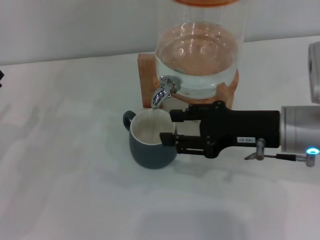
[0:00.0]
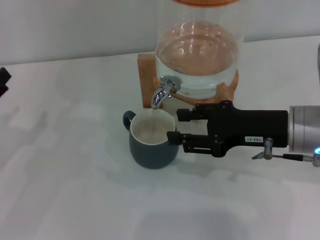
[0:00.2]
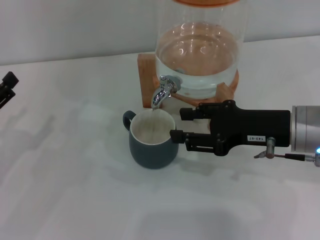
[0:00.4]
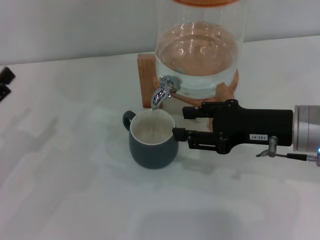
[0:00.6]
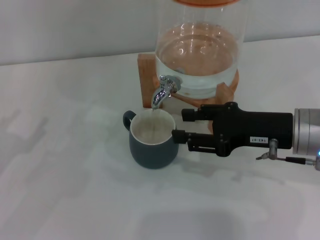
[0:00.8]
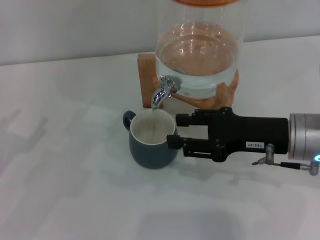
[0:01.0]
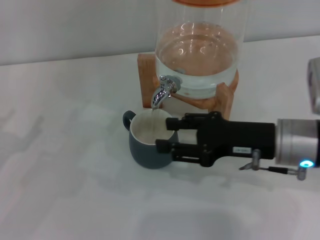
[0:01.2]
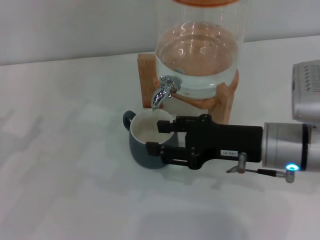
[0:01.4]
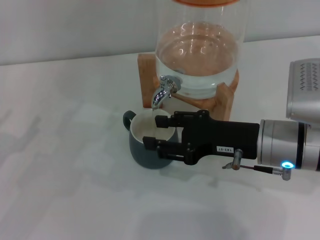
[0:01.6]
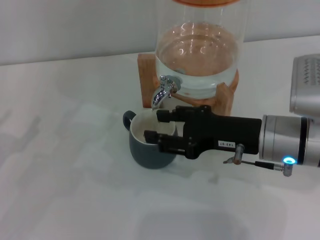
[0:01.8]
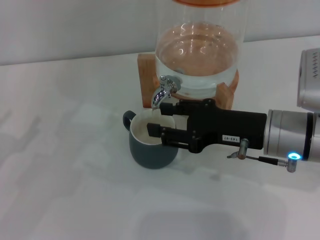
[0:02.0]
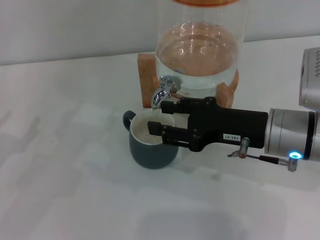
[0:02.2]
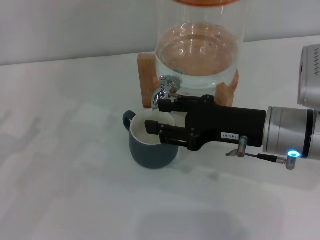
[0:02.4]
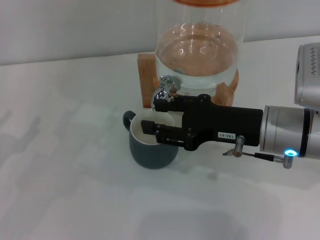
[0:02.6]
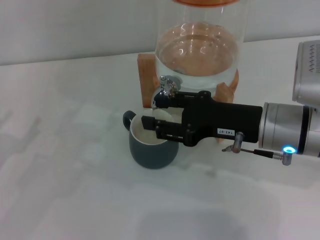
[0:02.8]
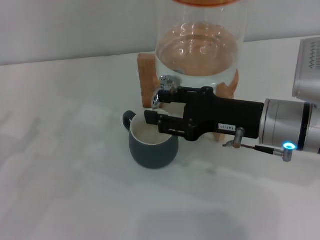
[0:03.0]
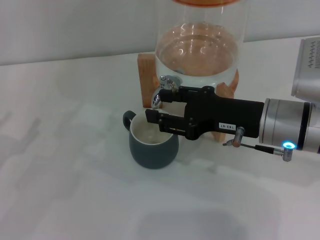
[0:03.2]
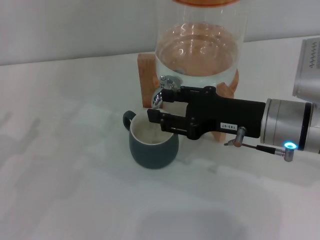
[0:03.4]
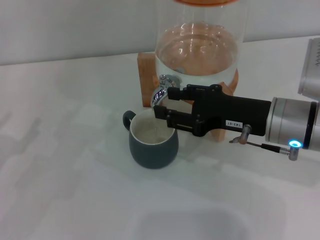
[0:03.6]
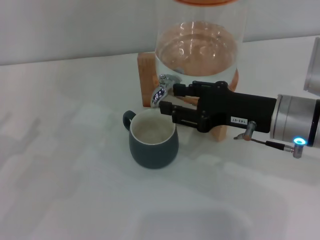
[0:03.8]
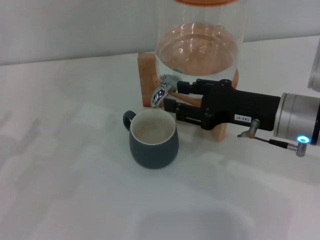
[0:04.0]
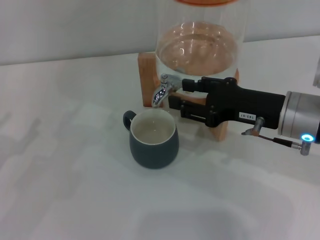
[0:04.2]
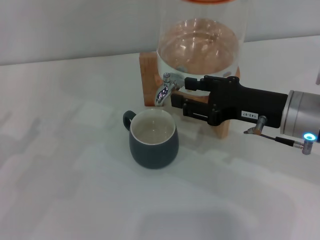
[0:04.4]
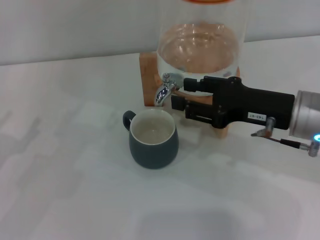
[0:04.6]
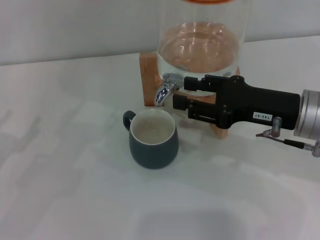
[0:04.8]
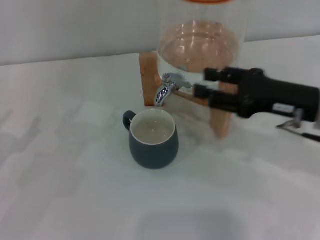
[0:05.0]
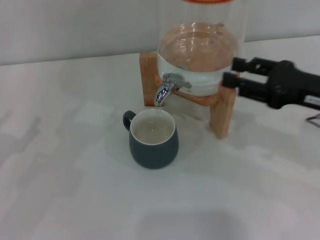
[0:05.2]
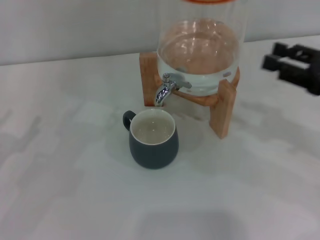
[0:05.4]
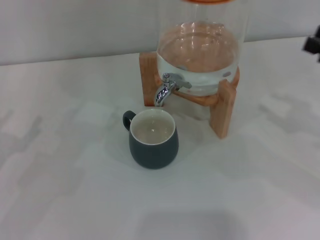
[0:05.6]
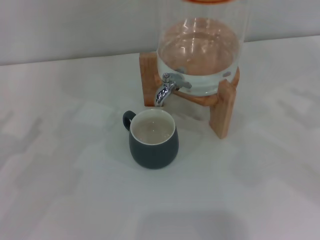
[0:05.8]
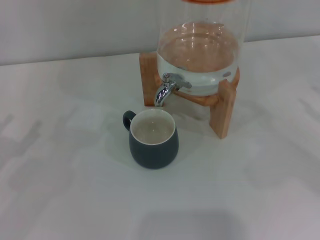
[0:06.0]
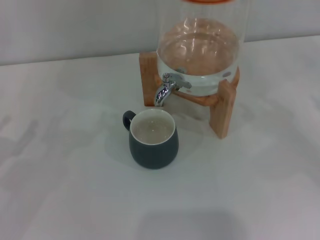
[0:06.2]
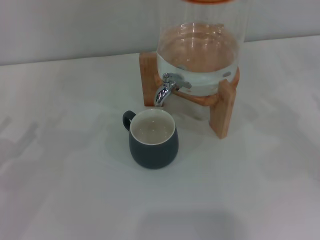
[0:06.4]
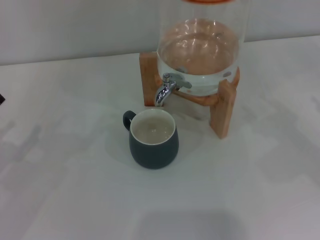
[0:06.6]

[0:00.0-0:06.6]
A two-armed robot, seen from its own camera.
Task of the whole recording: the left gripper pick up the black cup and place it horizontally under the faucet, the right gripper turn on the faucet to fill the cup, and then turn off the faucet.
Step, 0.0 to 4.4 s: Close the dispenser valve with the right gripper.
0.0 to 3.2 s: There are only small adjustments of the grippers.
3.2 to 5.0 s: The right gripper moves to the right, roughly 5 cm.
5.0 to 6.6 s: The right gripper shifts about 20 cm to the right.

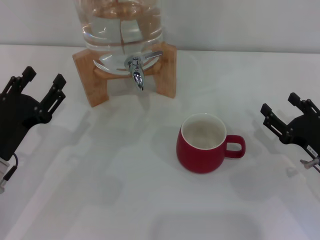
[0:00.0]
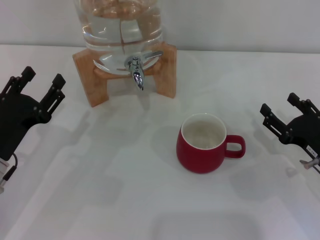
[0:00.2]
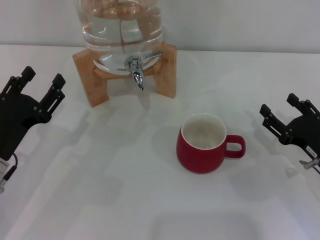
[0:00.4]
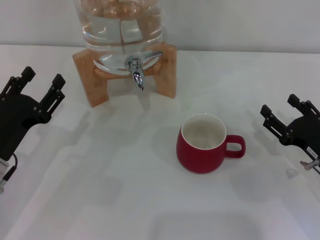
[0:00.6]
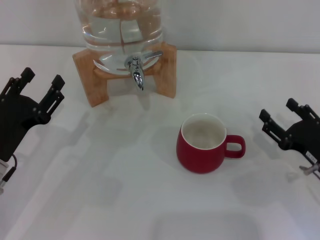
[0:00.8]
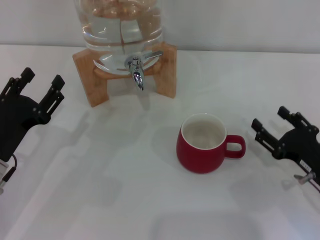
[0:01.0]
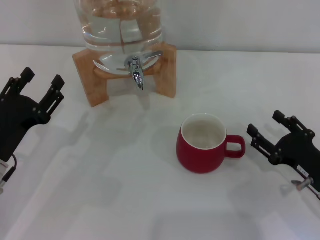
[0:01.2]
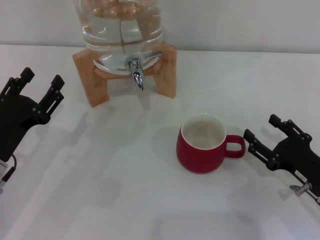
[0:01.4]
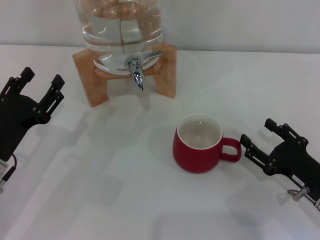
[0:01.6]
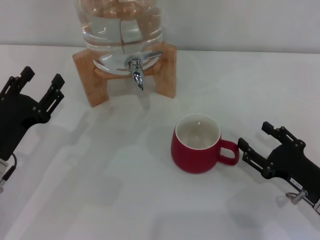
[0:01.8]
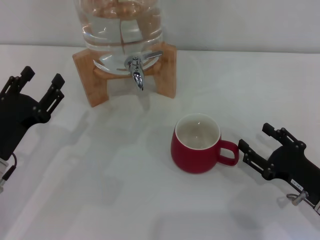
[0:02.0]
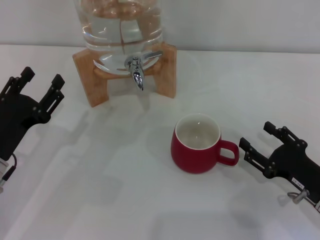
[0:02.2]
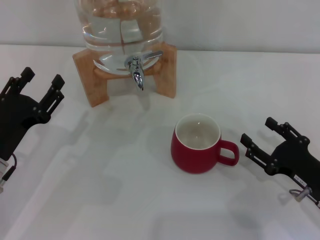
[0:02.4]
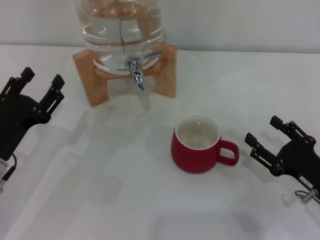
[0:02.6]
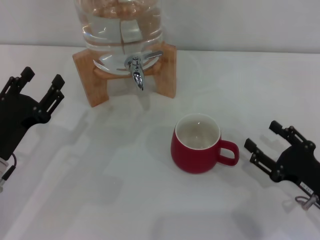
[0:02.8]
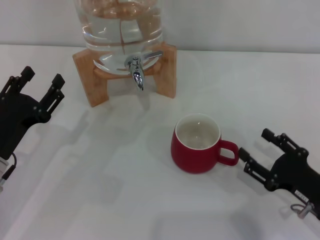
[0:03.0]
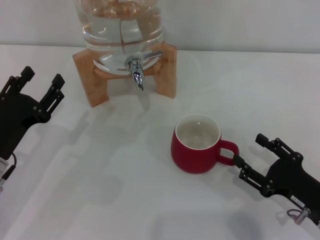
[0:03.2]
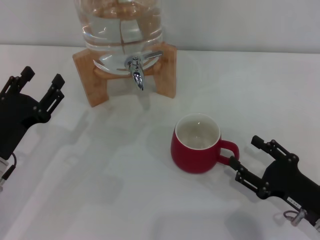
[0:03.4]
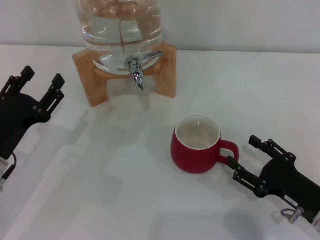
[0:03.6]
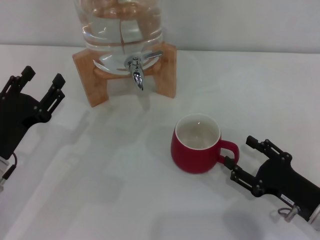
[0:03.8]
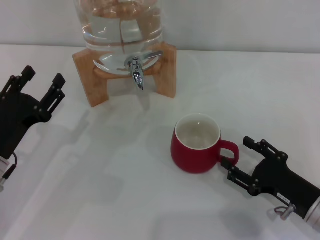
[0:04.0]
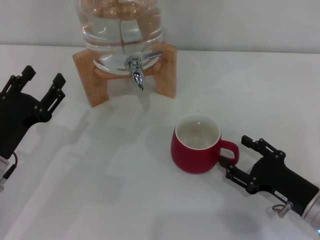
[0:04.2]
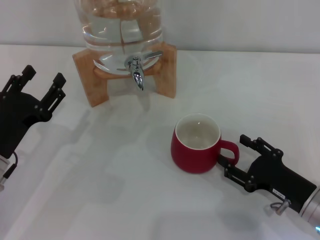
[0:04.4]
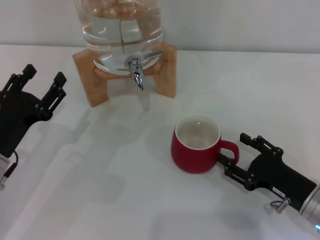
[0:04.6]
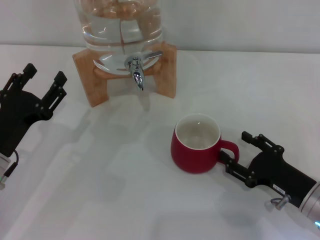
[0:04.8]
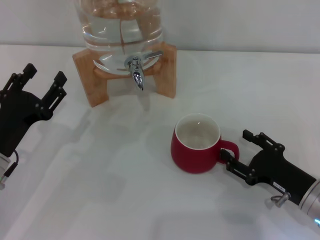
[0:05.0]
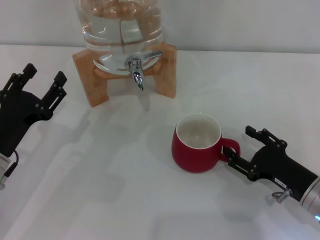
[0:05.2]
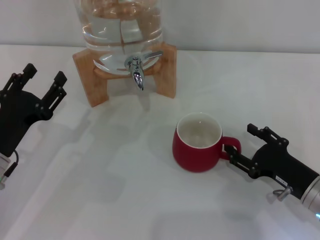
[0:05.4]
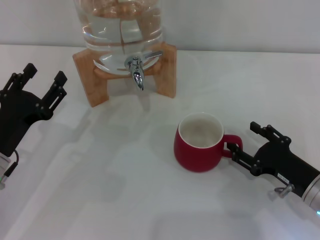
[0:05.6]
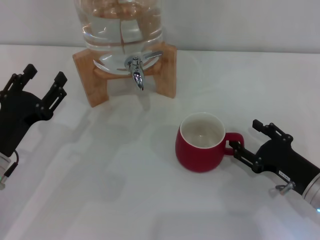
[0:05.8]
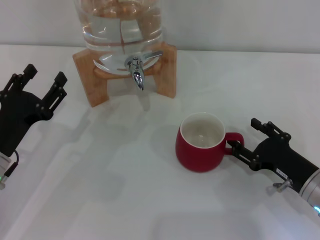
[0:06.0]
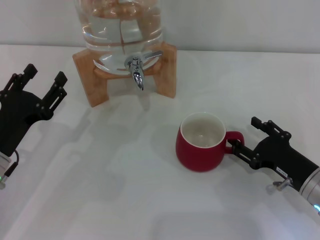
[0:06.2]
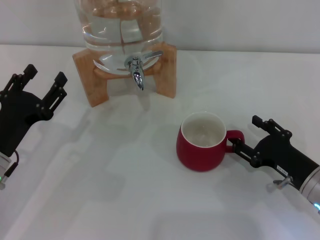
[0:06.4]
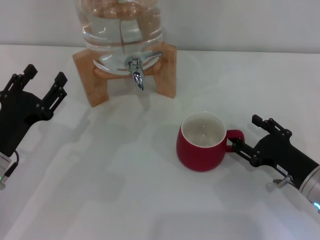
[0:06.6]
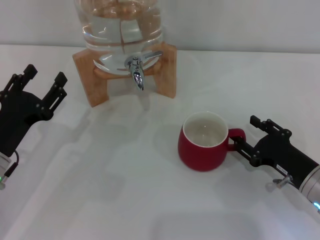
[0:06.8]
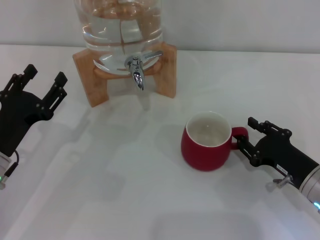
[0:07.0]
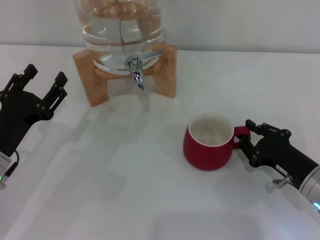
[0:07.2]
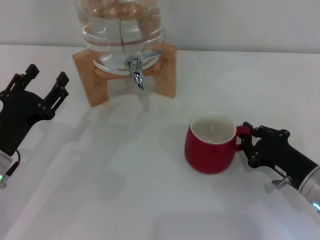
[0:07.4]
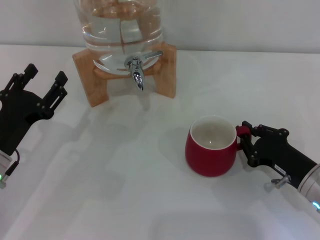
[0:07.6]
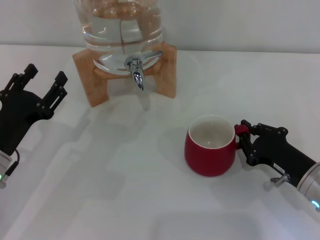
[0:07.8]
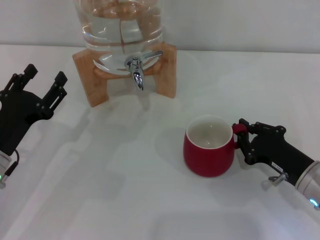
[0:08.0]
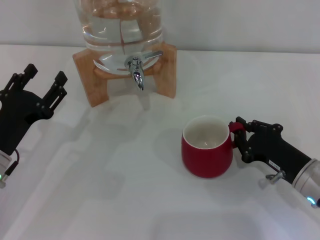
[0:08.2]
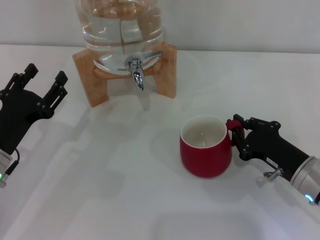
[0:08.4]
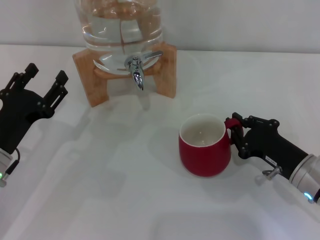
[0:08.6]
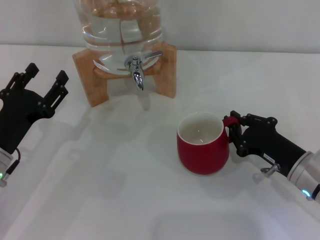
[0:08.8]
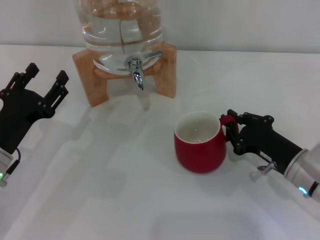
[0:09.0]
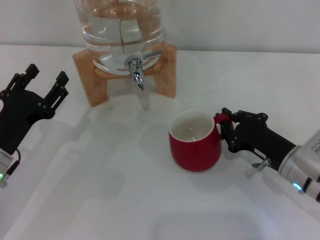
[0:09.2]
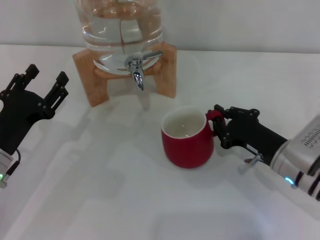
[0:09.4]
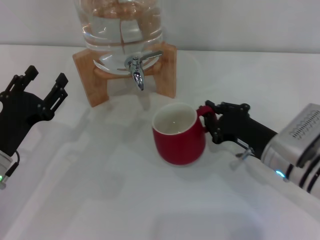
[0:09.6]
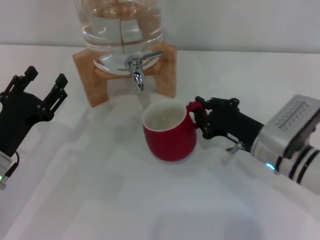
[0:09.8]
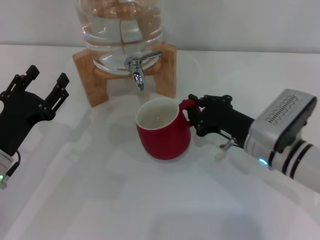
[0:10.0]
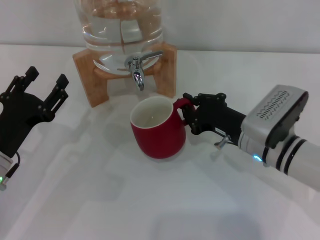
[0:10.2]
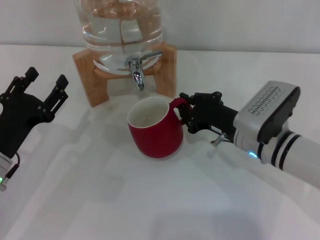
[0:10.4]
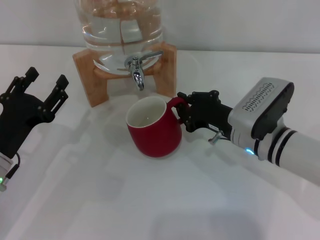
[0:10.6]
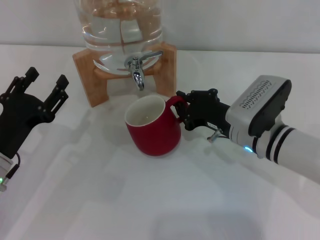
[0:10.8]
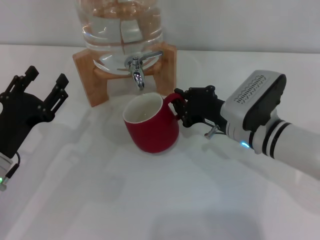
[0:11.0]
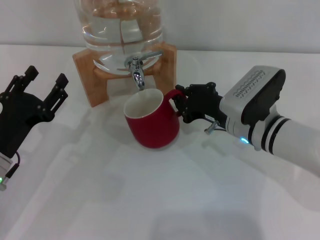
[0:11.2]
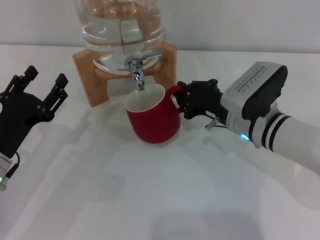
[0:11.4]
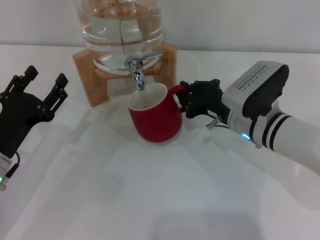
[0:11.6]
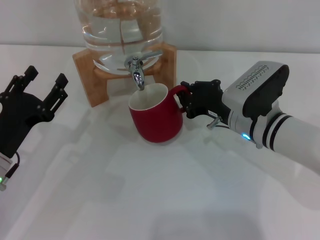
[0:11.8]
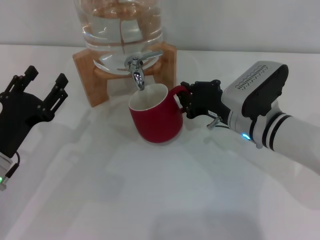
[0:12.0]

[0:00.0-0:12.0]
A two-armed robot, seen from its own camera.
Task of the whole recording: the right gripper pick up the red cup and place it horizontally under the faucet, the left gripper turn on the faucet to fill the cup, and then turn off the faucet.
0.0 to 6.0 s: The grippers move only a little.
6.0 to 7.6 s: The right gripper closes.
7.6 to 9.0 s: The grippers make only small movements.
9.0 to 10.4 s: The right gripper travels to the left by approximately 5 cm.
10.4 to 12.0 s: The grippers stay close to where they were, moving slightly.

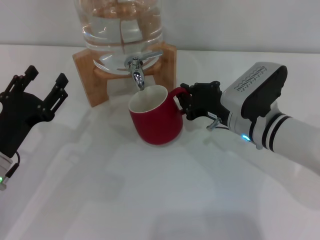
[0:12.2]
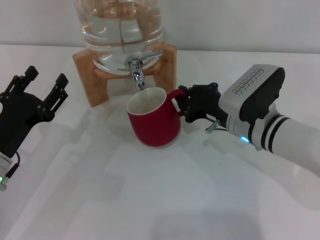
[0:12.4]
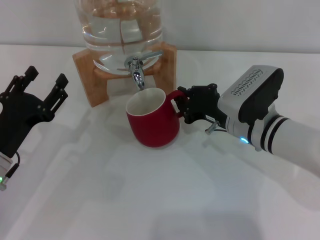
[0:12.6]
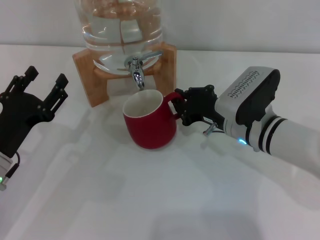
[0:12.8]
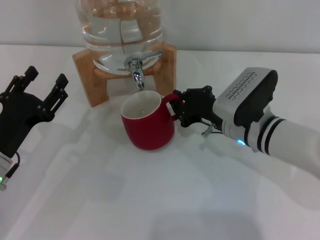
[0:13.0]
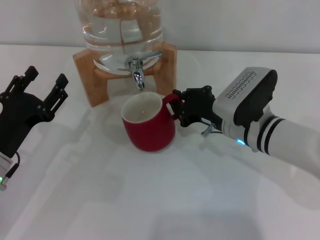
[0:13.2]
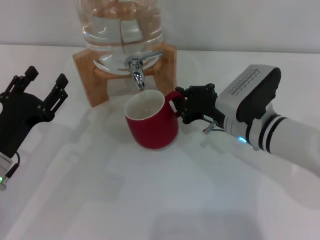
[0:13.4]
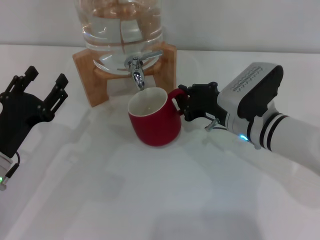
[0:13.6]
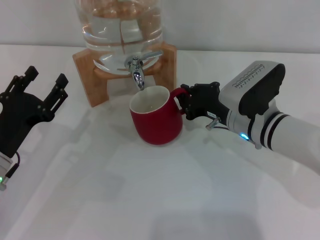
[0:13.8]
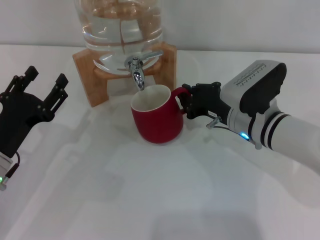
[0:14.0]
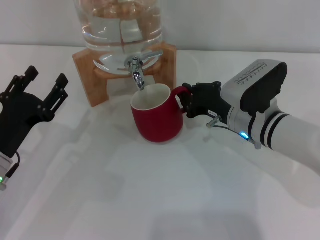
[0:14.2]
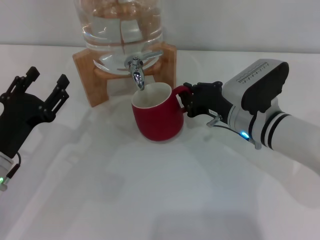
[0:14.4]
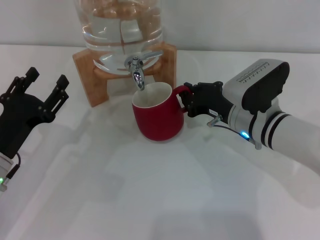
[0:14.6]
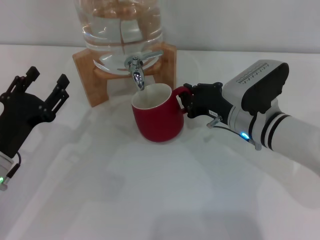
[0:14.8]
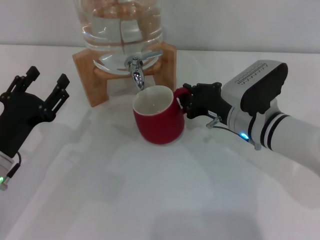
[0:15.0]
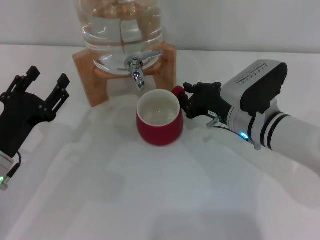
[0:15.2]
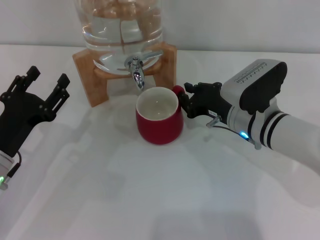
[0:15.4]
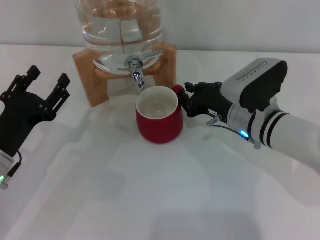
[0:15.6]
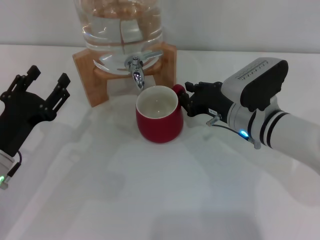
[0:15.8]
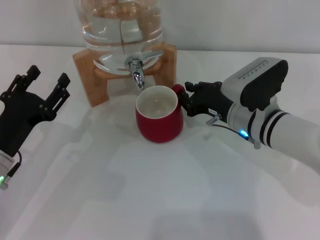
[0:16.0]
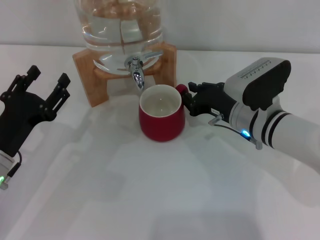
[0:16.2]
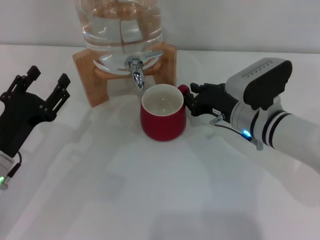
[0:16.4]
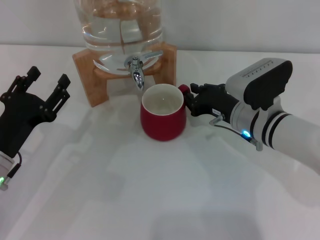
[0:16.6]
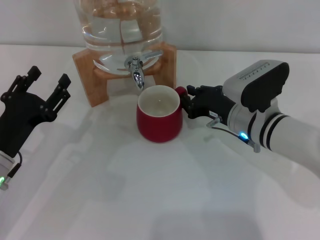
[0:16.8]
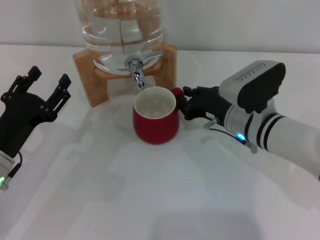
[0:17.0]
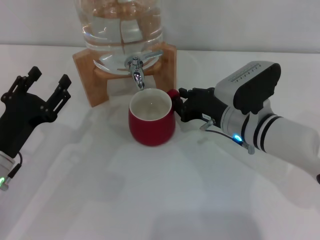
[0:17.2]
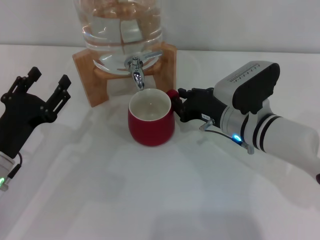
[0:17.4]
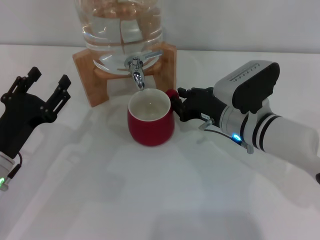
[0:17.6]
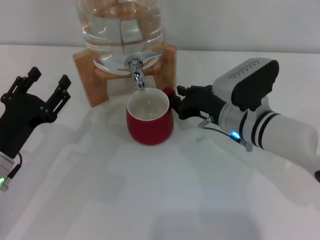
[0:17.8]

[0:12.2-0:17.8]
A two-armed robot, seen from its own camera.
Task of the whole recording: the right gripper pick up the red cup and place it horizontally under the faucet, the left gripper turn on the faucet to fill the cup, and then turn off the faucet.
12.2 to 13.6 s: Neither gripper changes place.
13.6 to 17.8 s: The grippers stay close to where they were, moving slightly.
